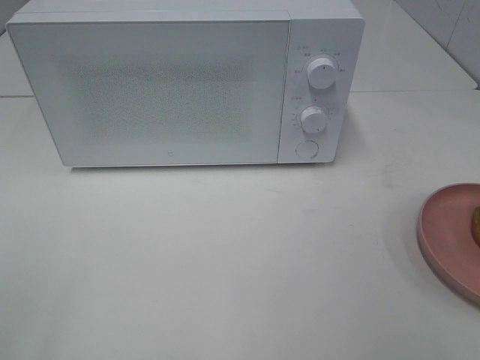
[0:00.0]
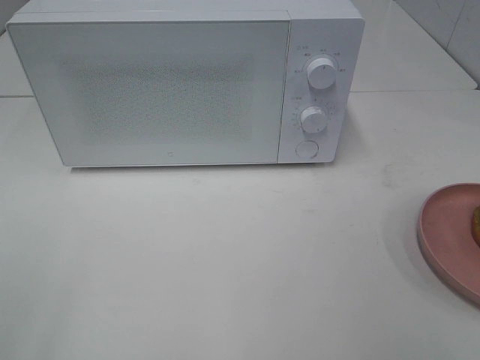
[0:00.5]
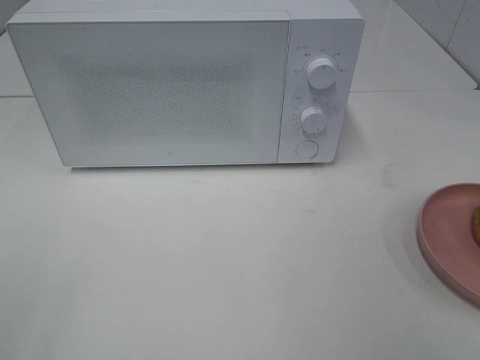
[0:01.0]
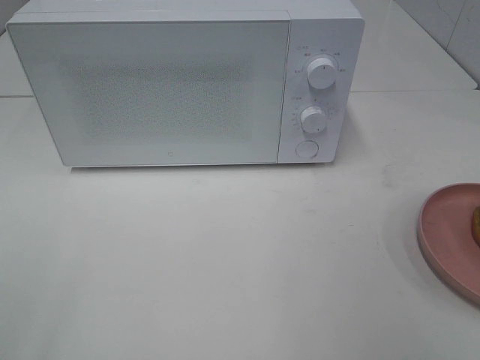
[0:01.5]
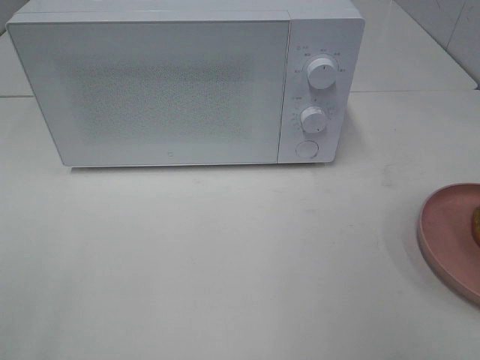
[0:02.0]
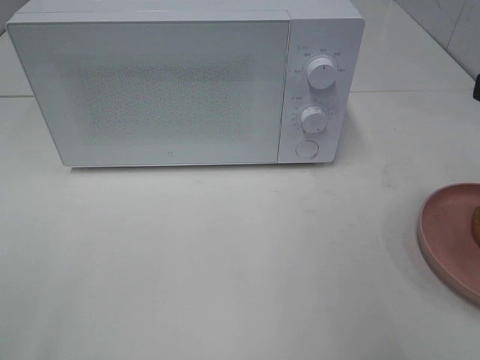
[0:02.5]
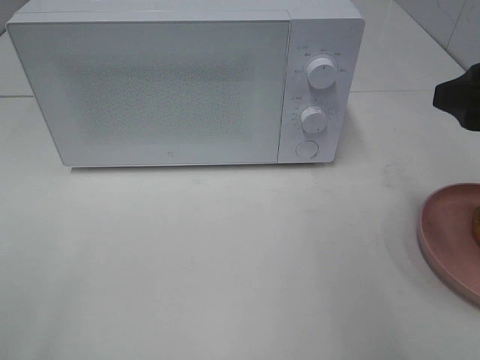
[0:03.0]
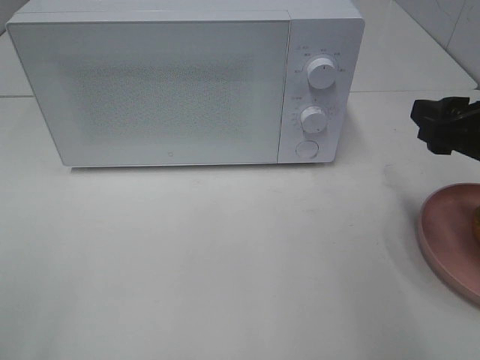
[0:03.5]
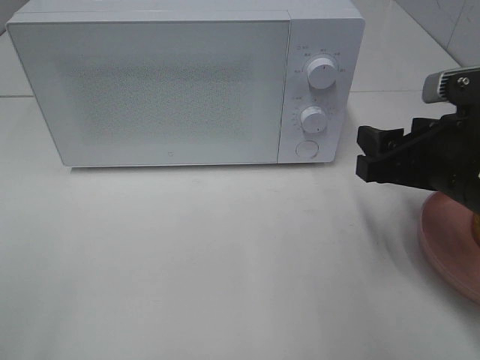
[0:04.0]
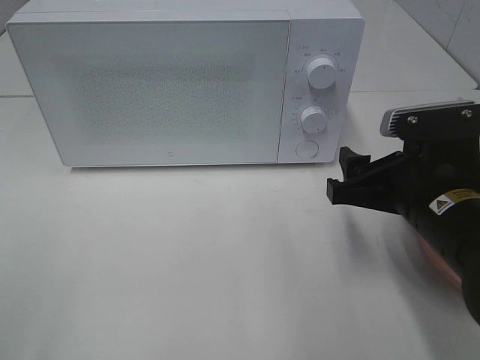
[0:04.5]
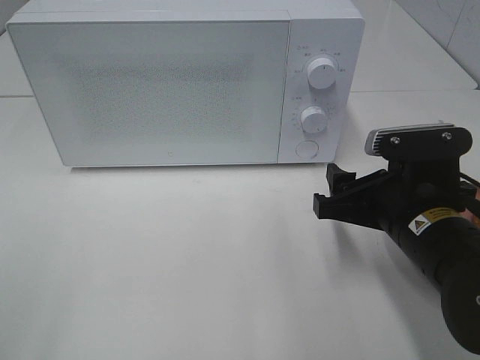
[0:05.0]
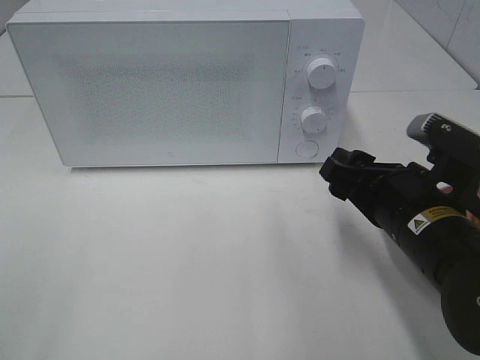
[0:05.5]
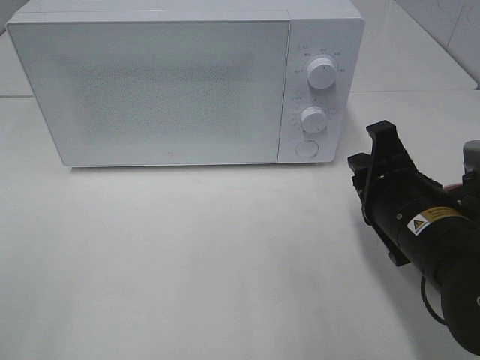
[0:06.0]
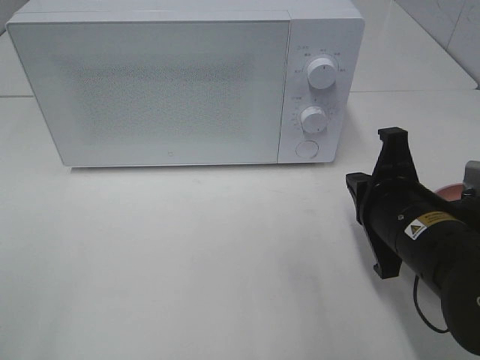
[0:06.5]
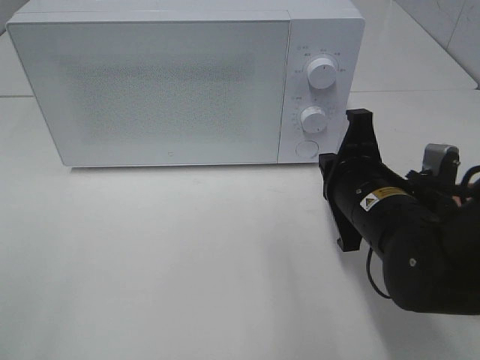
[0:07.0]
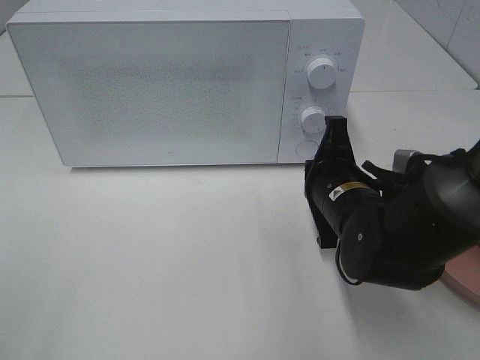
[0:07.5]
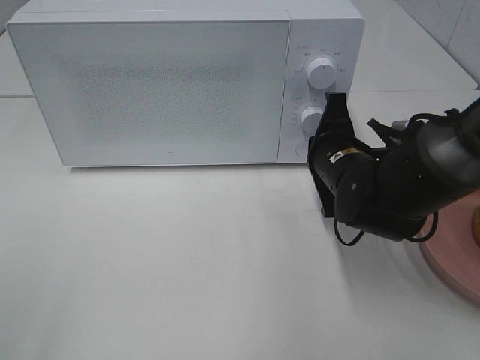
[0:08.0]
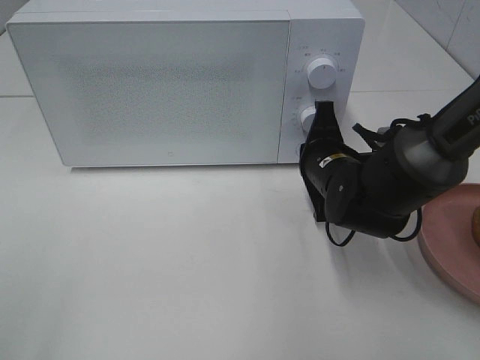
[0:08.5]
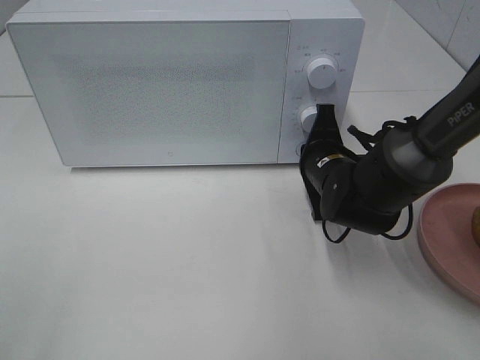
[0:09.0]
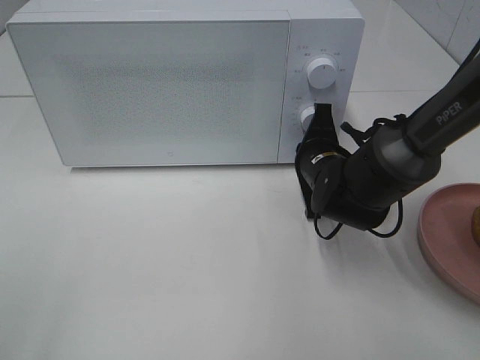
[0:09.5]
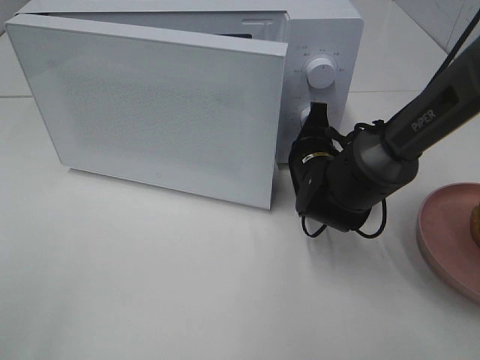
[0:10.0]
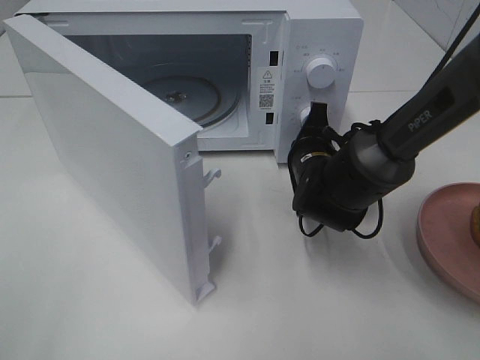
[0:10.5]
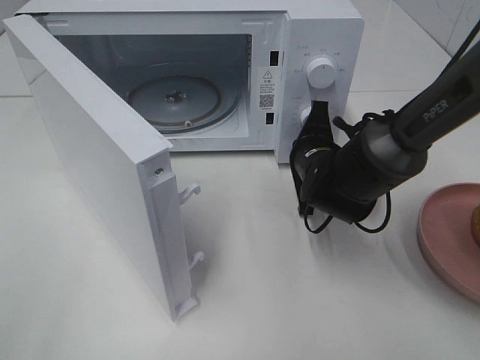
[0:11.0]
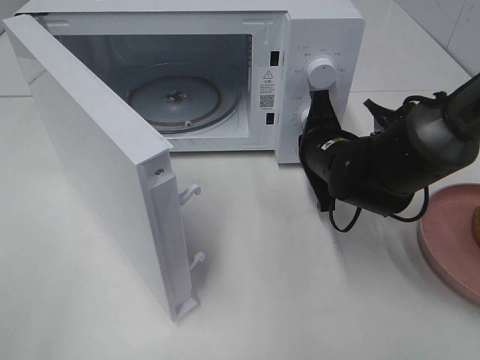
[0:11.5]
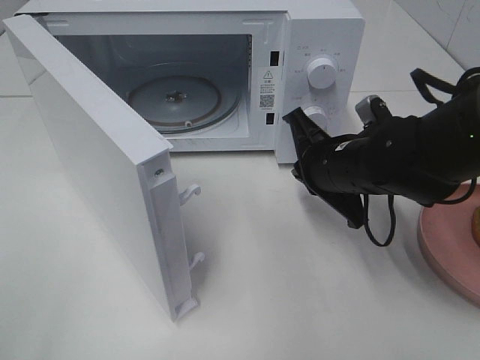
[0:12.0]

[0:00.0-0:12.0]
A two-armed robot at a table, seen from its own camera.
Task of the whole recording: Heat the burger.
Step, 0:00.0 to 0:11.5: Right hand: press the switch.
0:02.0 to 0:04.0: The right gripper travels downward, forward and to the left by roughly 20 cm.
0:04.0 to 0:06.0: The right gripper changes place by roughly 5 cm, and closes its fingers.
0:06.0 to 0:08.0: The right gripper goes approximately 10 cm forward.
0:08.0 to 0:10.0: The right gripper shifts by some 5 cm.
0:10.0 to 0:12.0: The right gripper shifts approximately 10 cm backward and upward.

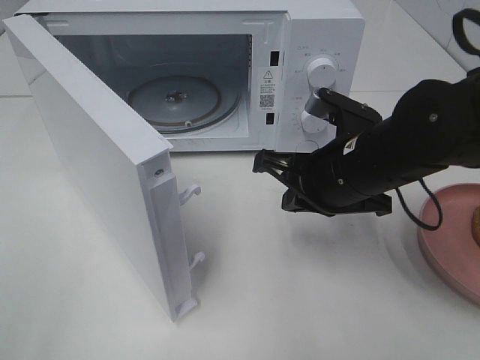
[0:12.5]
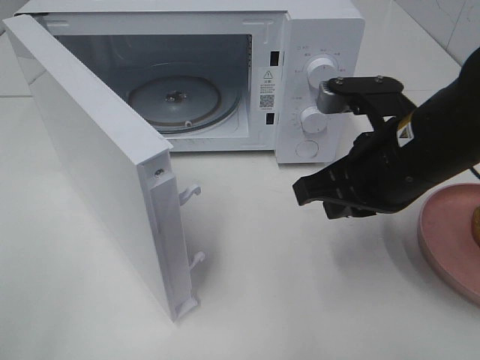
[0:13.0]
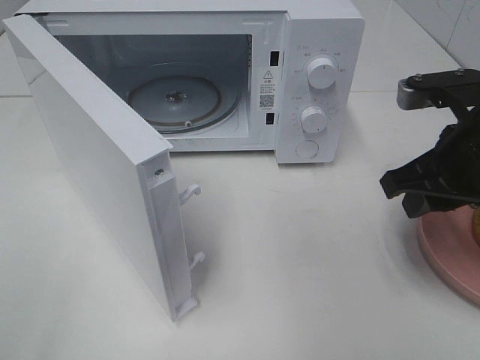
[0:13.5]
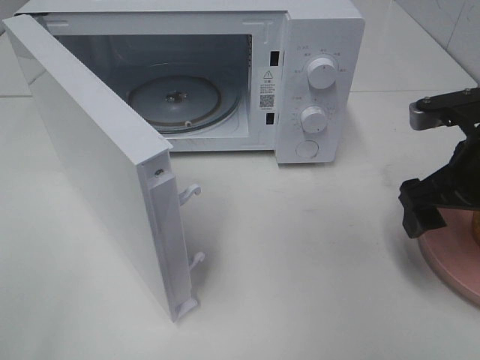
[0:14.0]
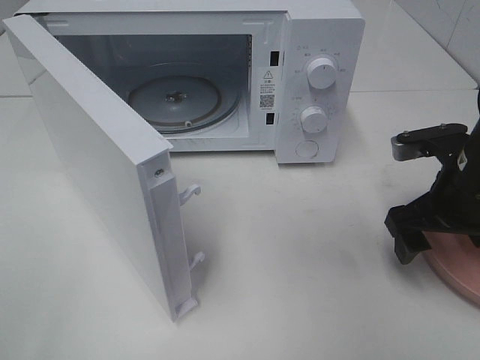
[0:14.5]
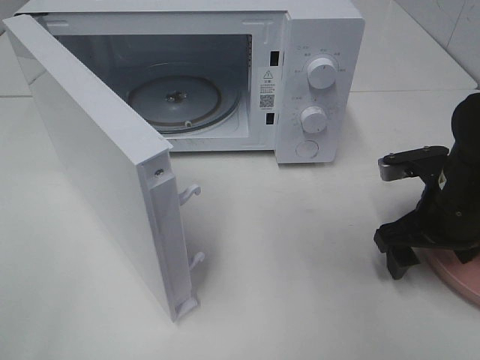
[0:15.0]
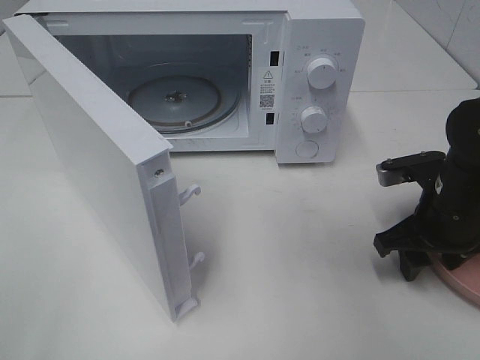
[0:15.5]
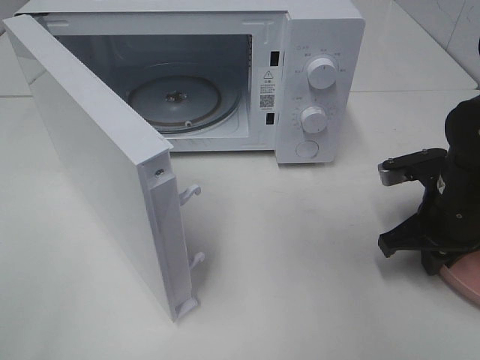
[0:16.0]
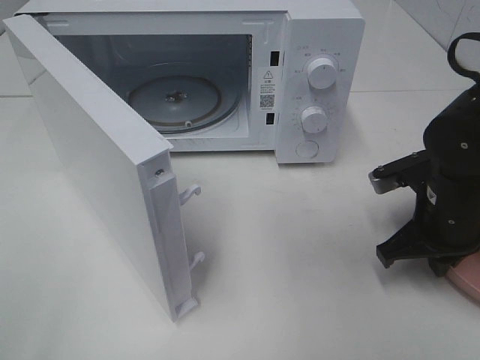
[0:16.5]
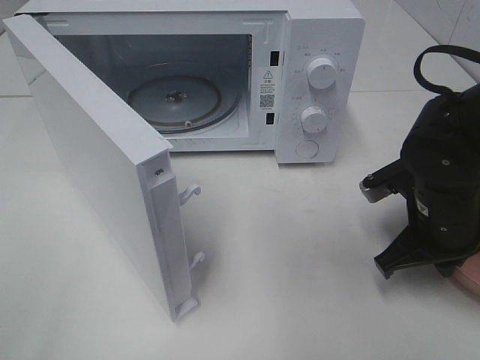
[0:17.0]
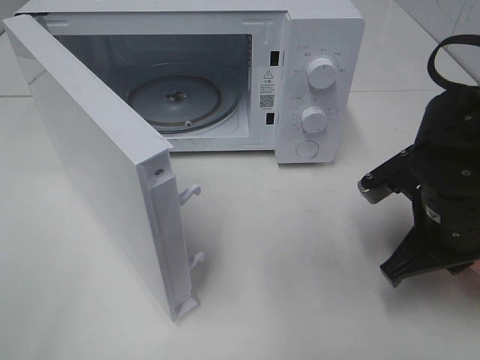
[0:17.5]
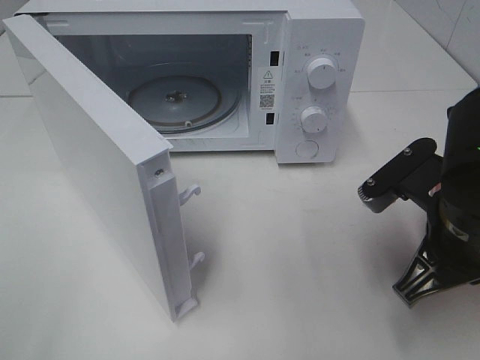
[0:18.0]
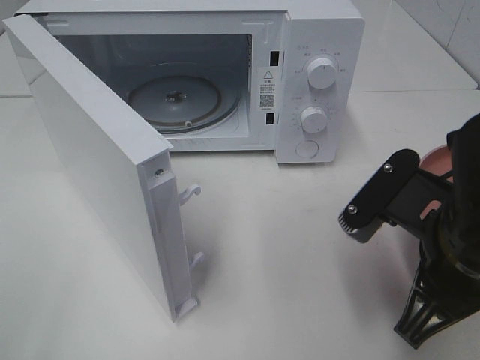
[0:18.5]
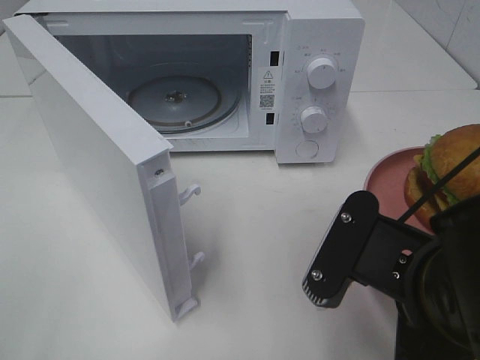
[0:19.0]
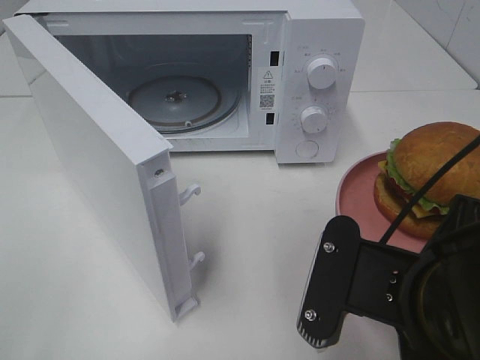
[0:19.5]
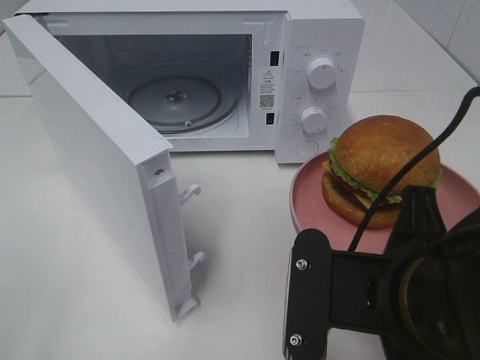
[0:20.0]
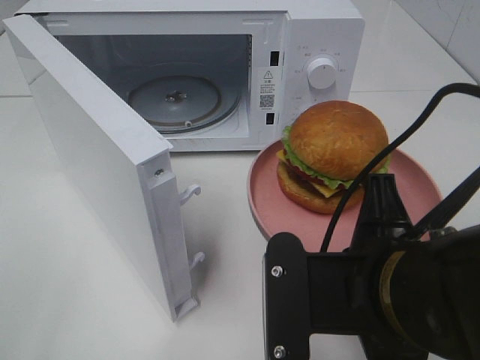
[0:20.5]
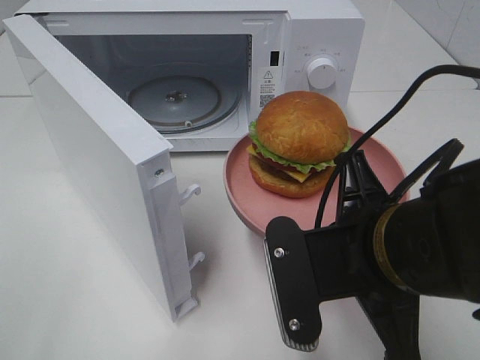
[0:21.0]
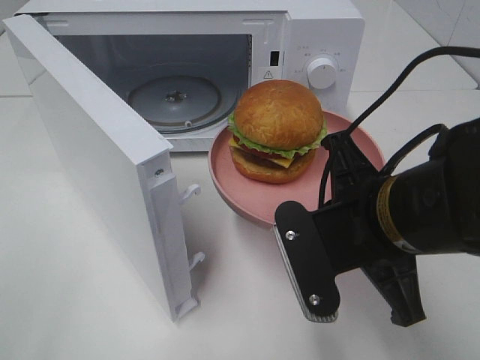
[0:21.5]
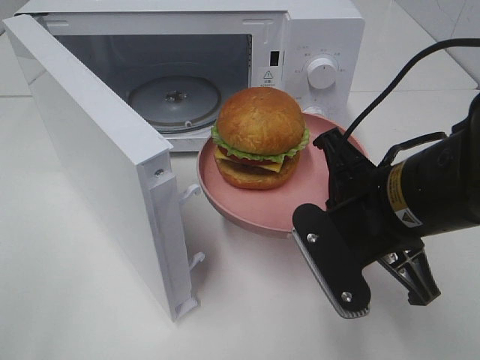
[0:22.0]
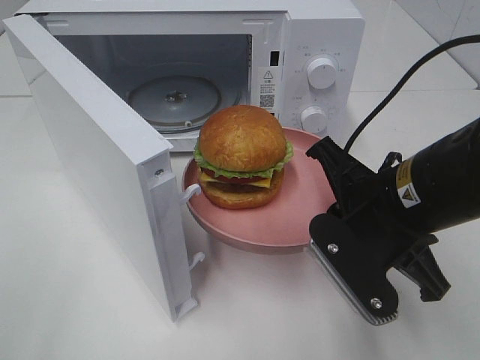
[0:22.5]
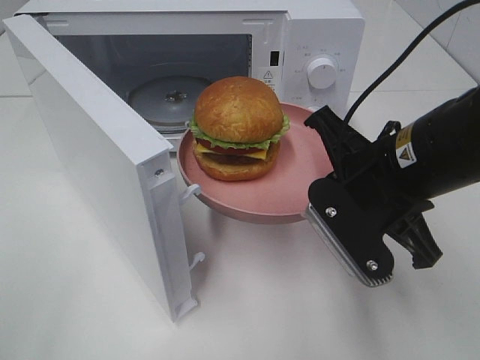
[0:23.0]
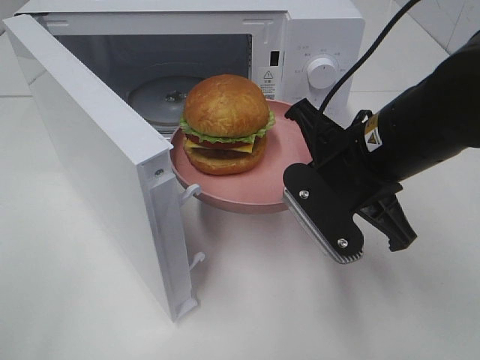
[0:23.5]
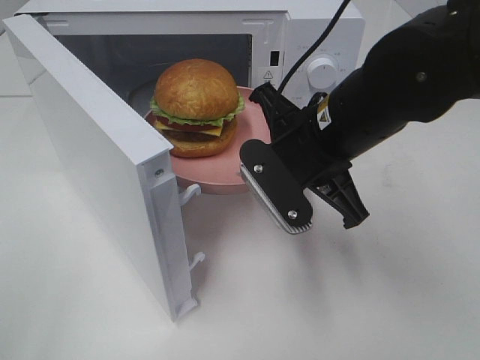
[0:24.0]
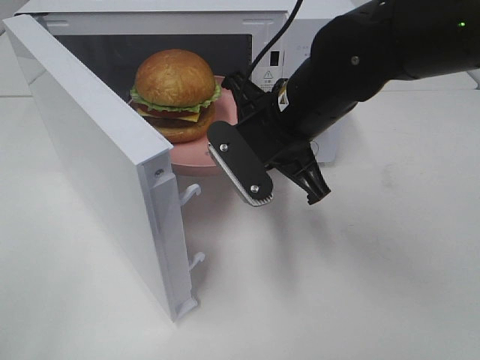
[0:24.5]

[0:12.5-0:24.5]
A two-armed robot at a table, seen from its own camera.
Task of the whole recording: Heat the burger.
Step, 0:12.5 to 0:15.5: Right hand: grab the plate with the hamburger.
0:12.5 to 0:14.5: The right gripper heads to the right, covering about 10 cm, and opens up.
0:14.5 to 0:16.5: The right gripper closes up.
0:16.5 to 0:18.5: The right gripper goes approximately 15 cm backward, upward and to the left.
0:18.5 to 0:20.5: The right gripper is displaced to the left by some 5 cm.
0:20.5 to 0:22.5: The right gripper shifts approximately 10 cm forward.
0:22.5 to 0:24.5: The right gripper moves forward and to the left, about 15 cm.

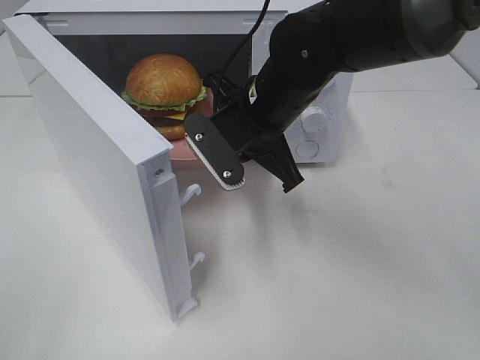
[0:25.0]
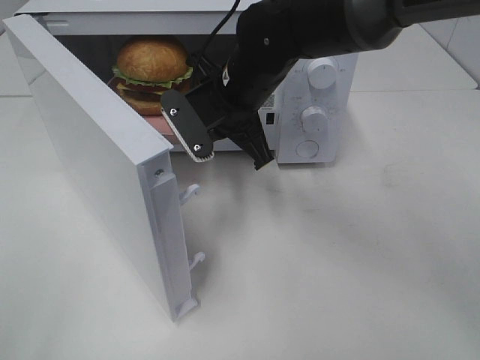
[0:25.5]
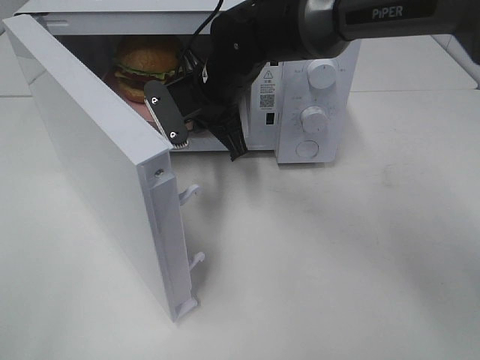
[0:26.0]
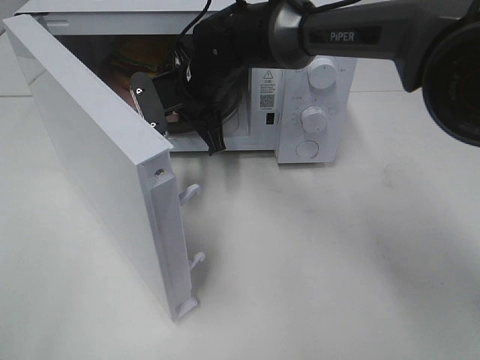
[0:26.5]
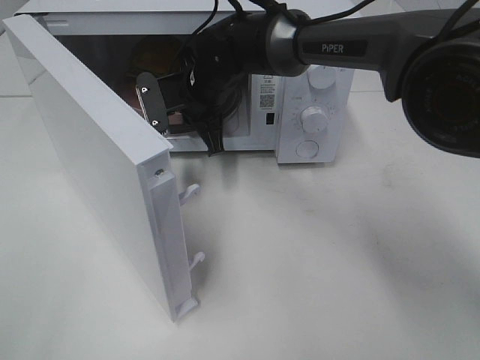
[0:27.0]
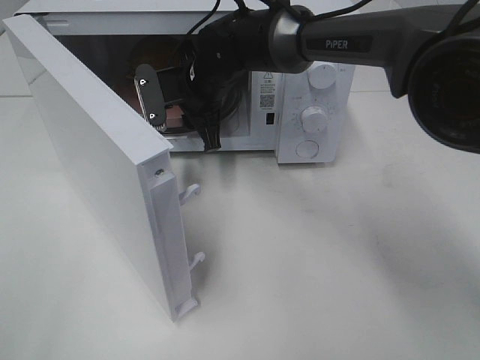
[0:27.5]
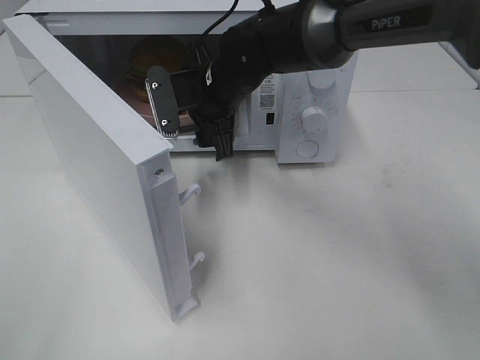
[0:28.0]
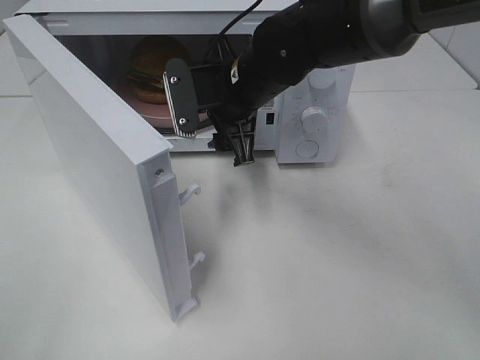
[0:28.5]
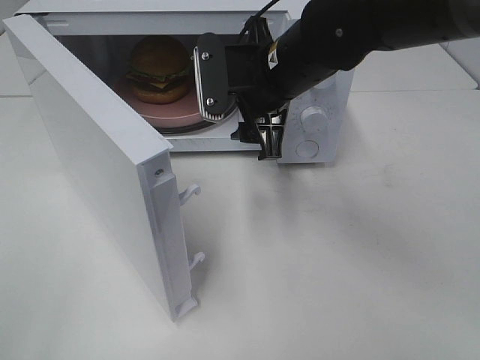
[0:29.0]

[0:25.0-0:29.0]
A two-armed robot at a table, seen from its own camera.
Task of the whole recording: Heat the burger.
Step, 0:25.0 to 0:27.5: Right hand: place the plate in the microwave.
0:25.0 to 0:27.0: The right gripper is displaced forward and to the left by approximately 15 cm.
0:27.0 to 0:29.0: The right gripper is displaced backward, to the right and upward by some 15 cm, and opens.
